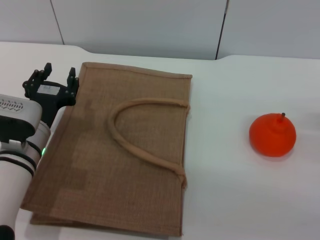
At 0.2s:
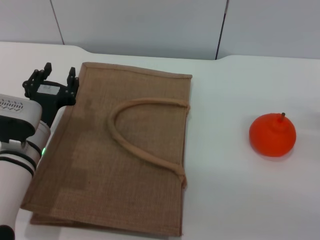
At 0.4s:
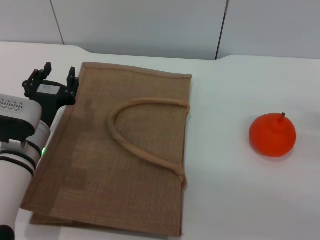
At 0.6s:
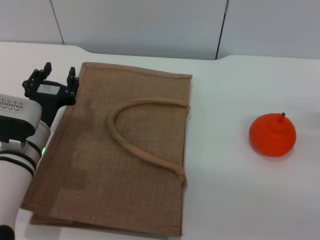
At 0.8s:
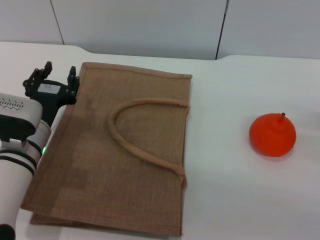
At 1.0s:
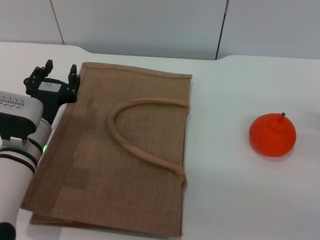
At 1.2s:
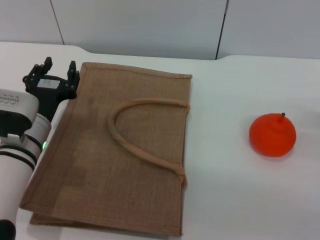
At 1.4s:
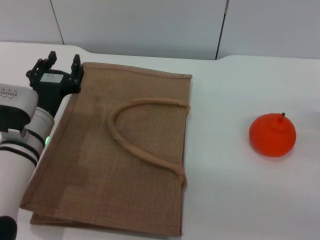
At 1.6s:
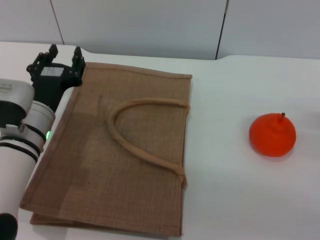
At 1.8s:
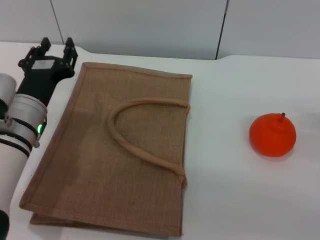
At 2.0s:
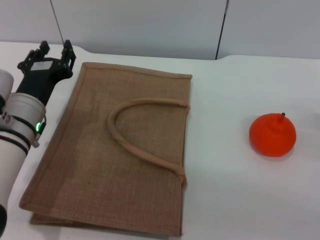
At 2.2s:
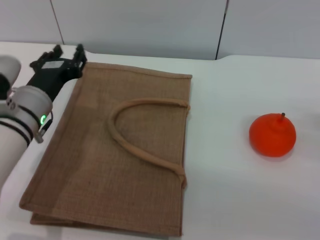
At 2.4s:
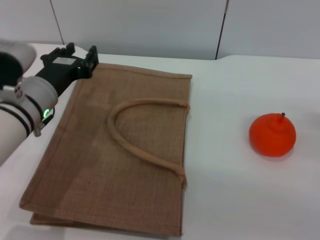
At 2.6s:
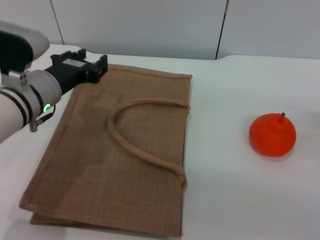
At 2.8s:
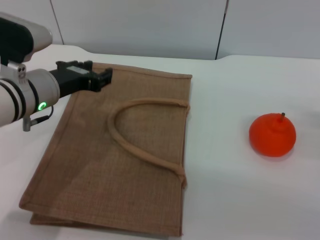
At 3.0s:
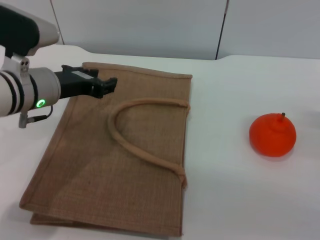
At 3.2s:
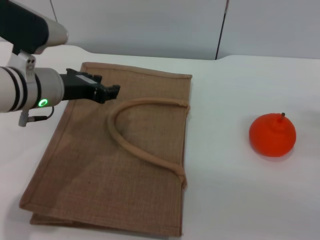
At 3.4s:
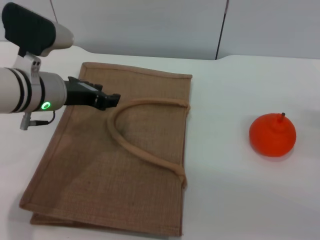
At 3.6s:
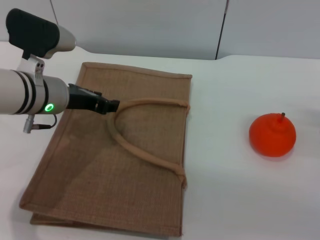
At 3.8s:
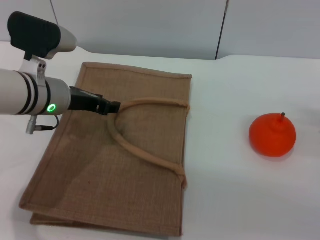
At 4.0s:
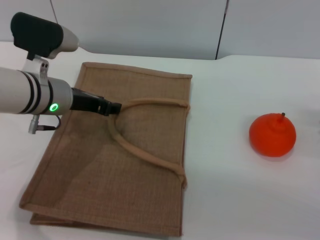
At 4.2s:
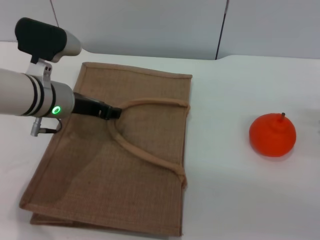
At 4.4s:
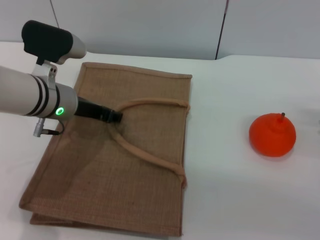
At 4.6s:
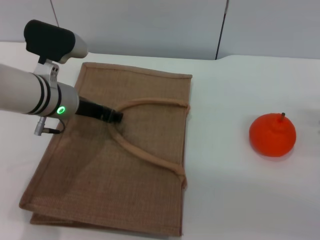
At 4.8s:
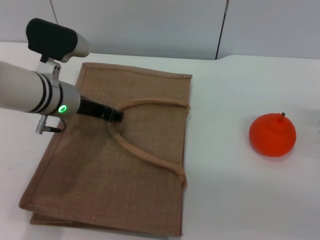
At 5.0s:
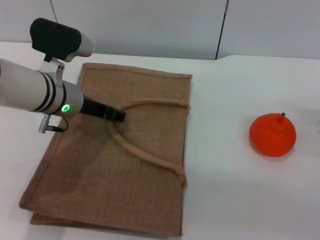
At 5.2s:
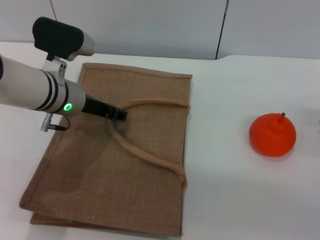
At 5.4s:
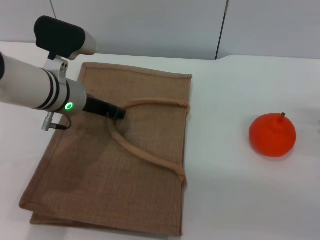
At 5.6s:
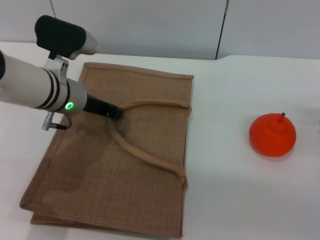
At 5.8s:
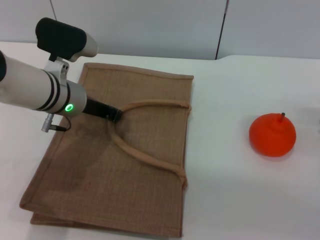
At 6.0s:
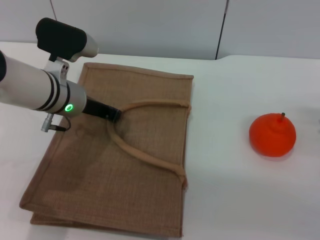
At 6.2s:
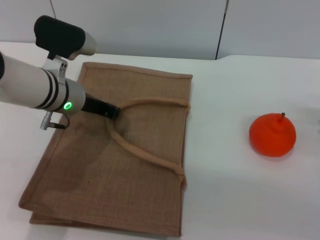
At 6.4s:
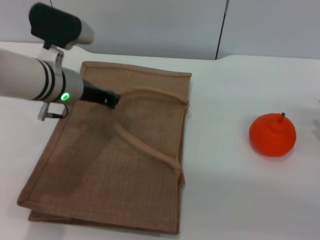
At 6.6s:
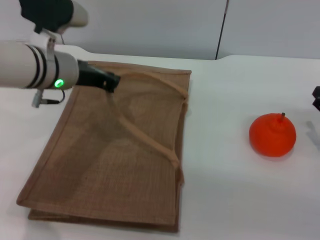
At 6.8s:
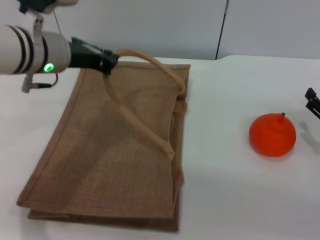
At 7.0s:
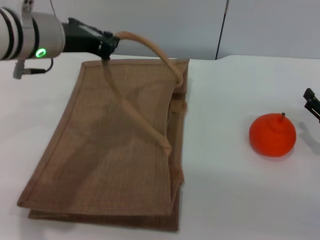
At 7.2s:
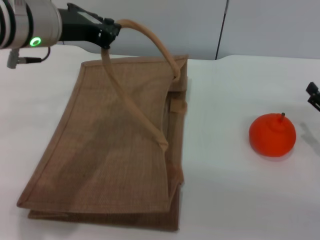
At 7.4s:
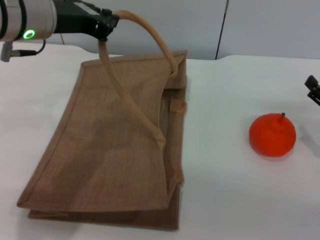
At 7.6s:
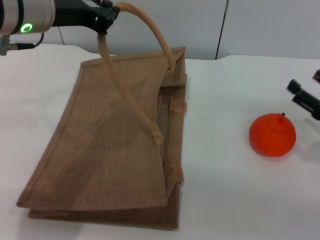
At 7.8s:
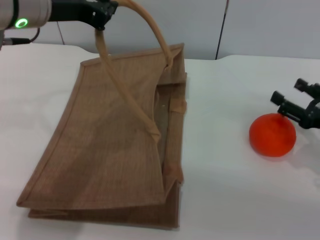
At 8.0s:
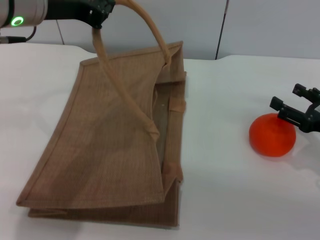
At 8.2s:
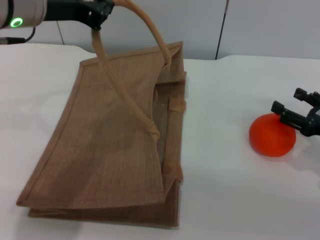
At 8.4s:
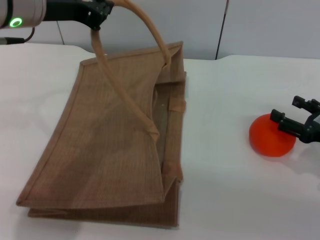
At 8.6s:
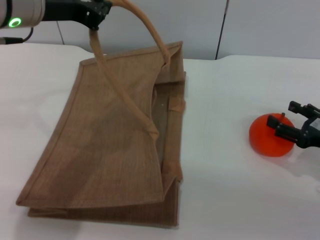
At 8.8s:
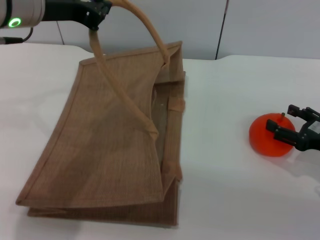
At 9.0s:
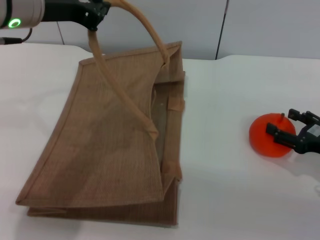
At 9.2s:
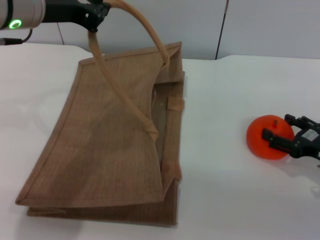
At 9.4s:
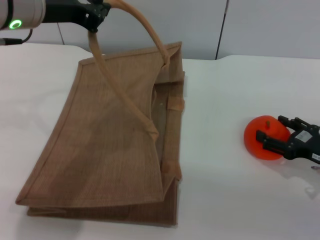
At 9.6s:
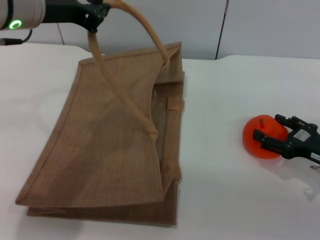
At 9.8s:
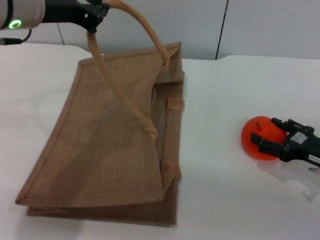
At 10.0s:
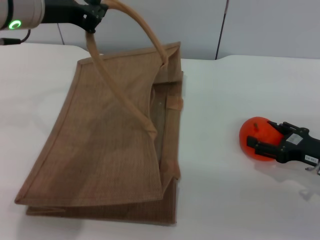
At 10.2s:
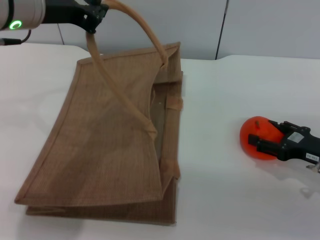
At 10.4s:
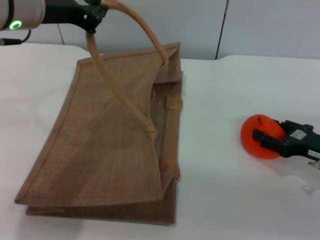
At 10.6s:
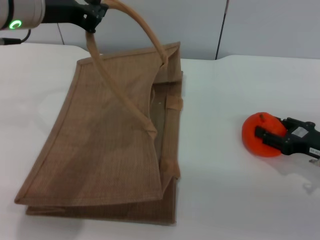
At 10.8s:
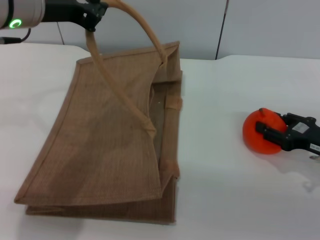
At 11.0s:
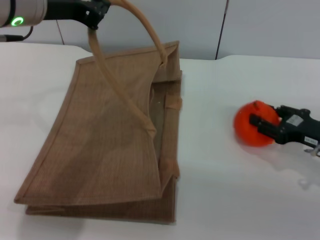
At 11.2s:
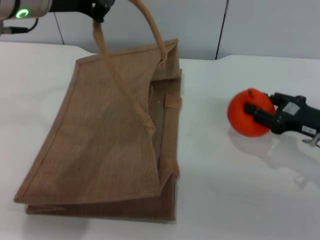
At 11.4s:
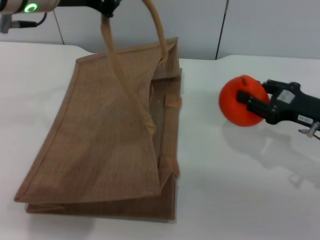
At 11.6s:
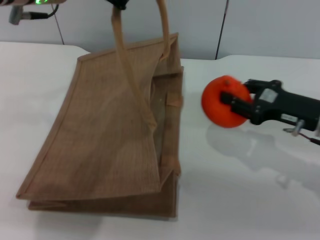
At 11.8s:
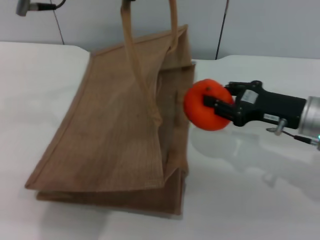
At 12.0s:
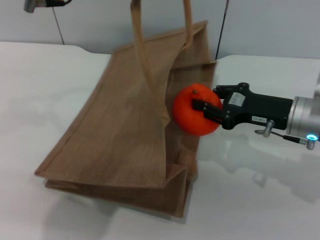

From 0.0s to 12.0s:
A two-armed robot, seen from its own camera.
Task of the whole recording: pick up the orange from the table and place it in the brown handbag.
Step, from 0.0s to 8.8s: Lift the woven bag with the left gripper to open it.
Step, from 9.0s to 11.4s: Pick up the orange with the right gripper.
From 0.0s to 1.6s: The grippers move only a little.
From 1.6s to 3.0s: The left gripper is displaced upward by approximately 10 cm.
From 3.0s to 4.4s: The grippers make only small movements.
From 4.4s to 6.0s: The left gripper closes up.
From 6.0s to 7.6s: The left gripper travels upward by roughly 15 cm.
From 7.6s to 9.0s: There are only small adjustments of the grippers.
From 9.0s to 10.4s: The grippers make only small movements.
From 10.4s to 12.0s: The left gripper moves to the right, approximately 5 cm. The right gripper goes some 10 cm to the left and upward, and closes up.

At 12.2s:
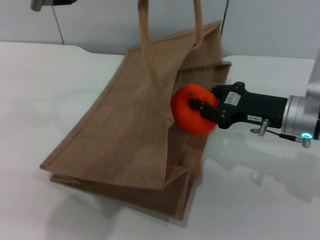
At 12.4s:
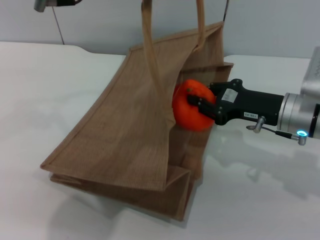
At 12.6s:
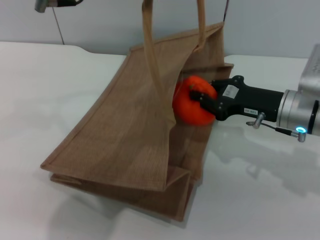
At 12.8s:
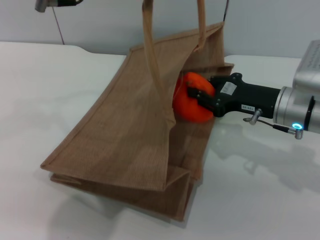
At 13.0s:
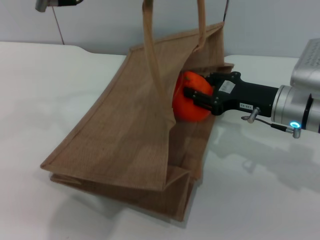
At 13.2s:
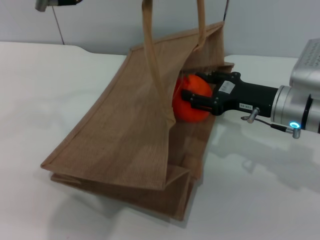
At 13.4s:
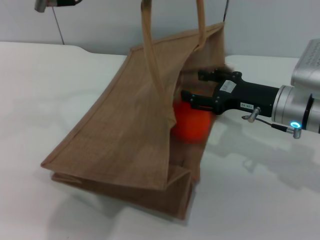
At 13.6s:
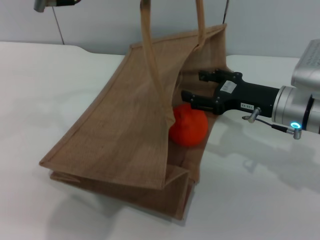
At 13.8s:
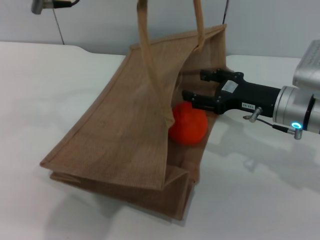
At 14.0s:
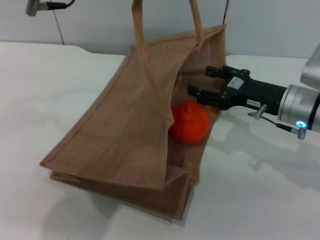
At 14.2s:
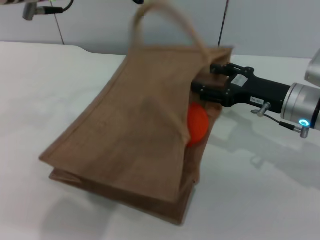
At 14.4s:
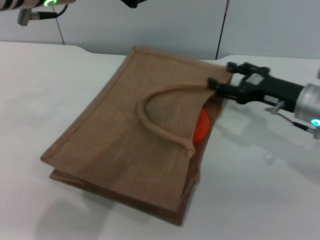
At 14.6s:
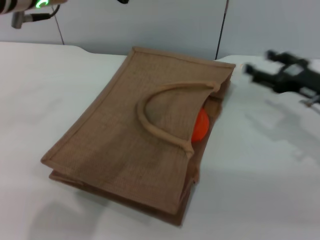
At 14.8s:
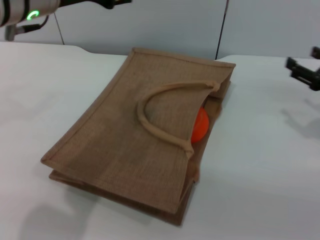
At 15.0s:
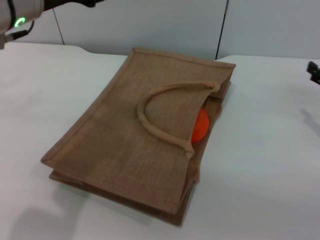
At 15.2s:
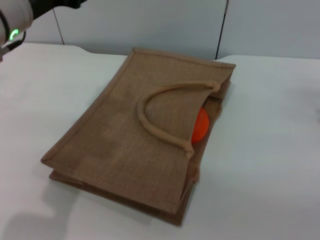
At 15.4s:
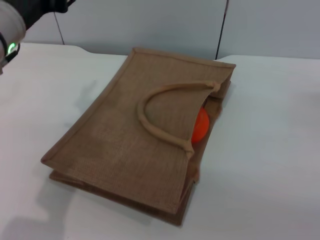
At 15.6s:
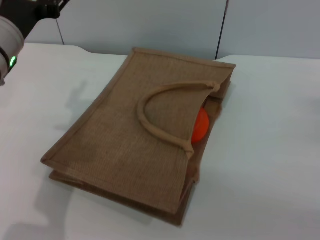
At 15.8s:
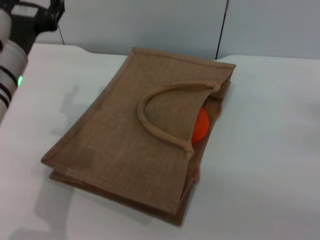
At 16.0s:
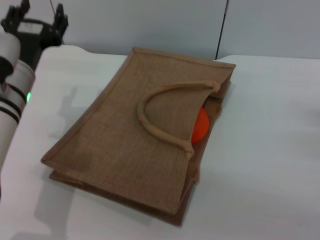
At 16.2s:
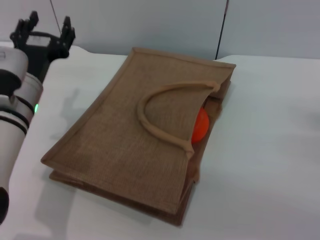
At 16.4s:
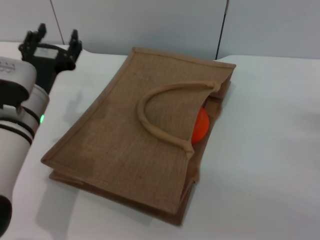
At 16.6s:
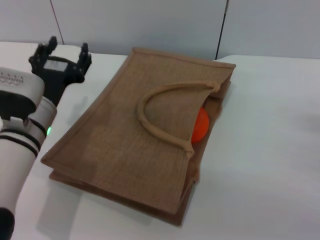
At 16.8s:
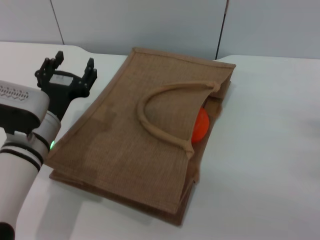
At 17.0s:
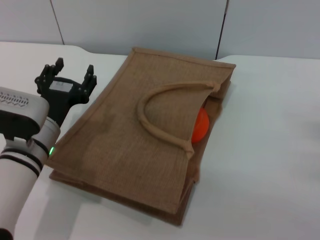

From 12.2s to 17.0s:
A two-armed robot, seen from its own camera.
Task of the whole recording: pick up the orange from the table and place it in the brown handbag.
Step, from 12.2s to 14.4s: Place the orange into the woven bag with the right gripper.
From 12.2s to 13.8s: The right gripper opens.
From 13.8s to 15.4s: The right gripper travels to the right by about 15 cm. The left gripper is displaced downward and to the left by approximately 15 cm, and opens.
From 15.4s to 17.0s: The left gripper is displaced downward by roughly 15 cm.

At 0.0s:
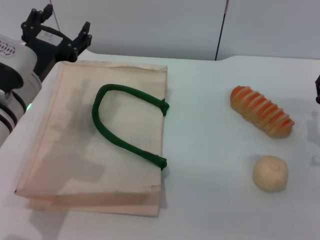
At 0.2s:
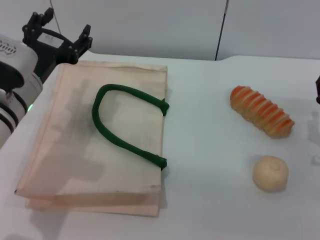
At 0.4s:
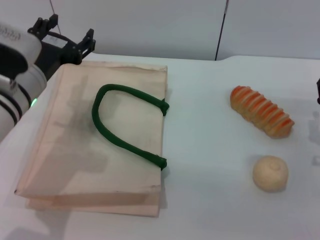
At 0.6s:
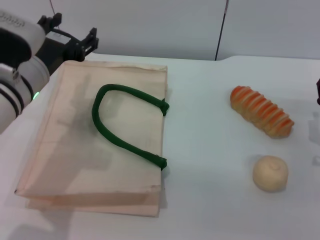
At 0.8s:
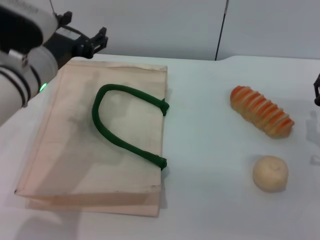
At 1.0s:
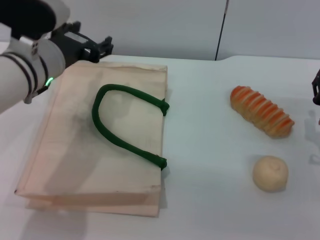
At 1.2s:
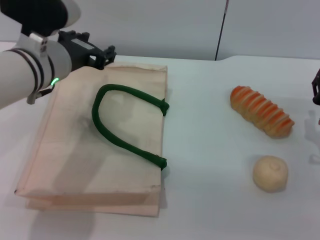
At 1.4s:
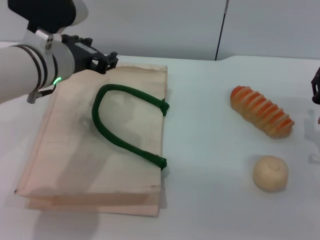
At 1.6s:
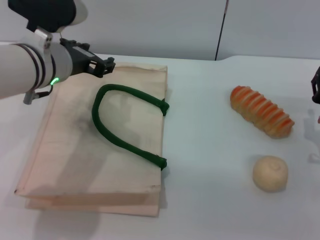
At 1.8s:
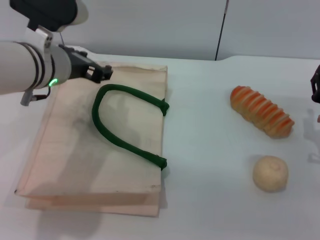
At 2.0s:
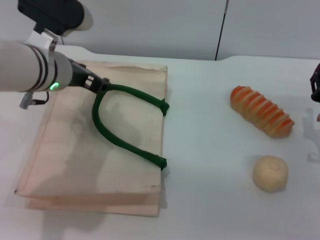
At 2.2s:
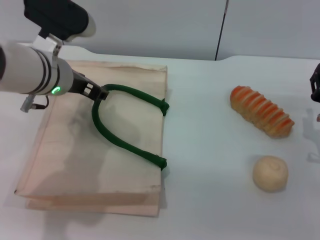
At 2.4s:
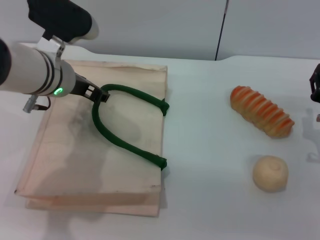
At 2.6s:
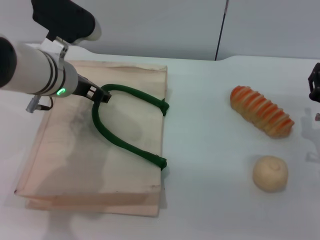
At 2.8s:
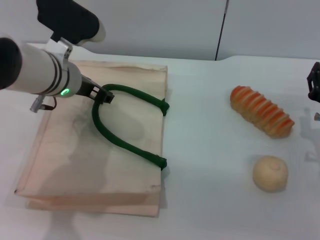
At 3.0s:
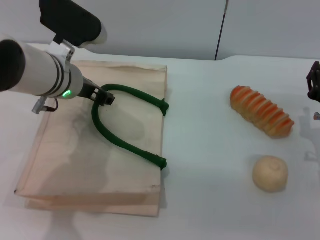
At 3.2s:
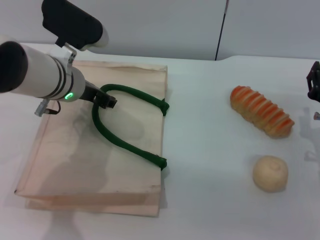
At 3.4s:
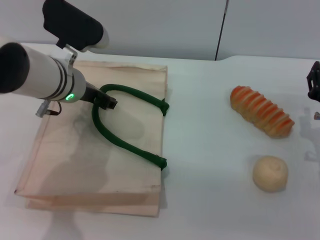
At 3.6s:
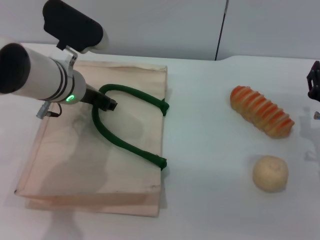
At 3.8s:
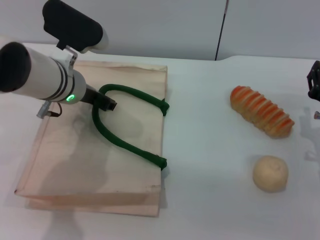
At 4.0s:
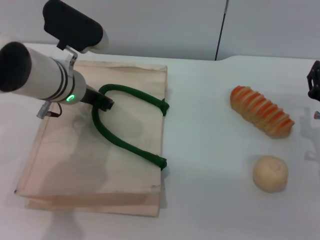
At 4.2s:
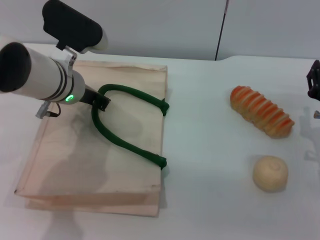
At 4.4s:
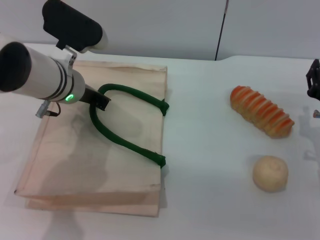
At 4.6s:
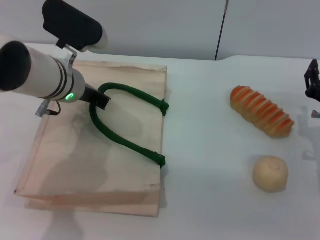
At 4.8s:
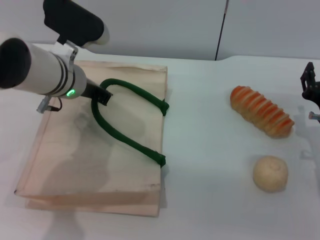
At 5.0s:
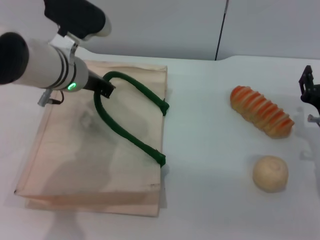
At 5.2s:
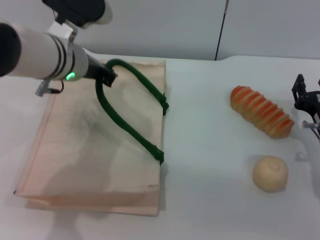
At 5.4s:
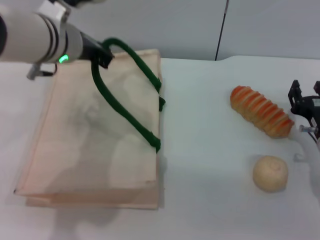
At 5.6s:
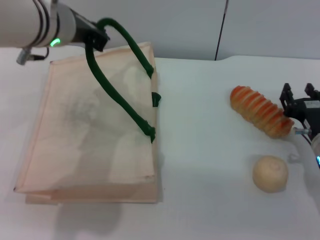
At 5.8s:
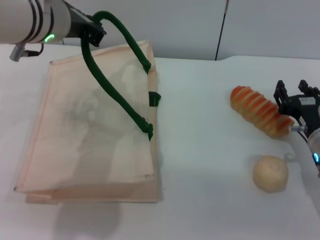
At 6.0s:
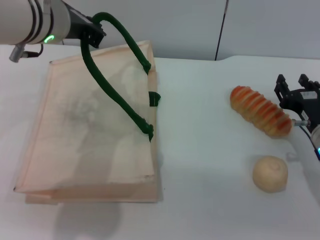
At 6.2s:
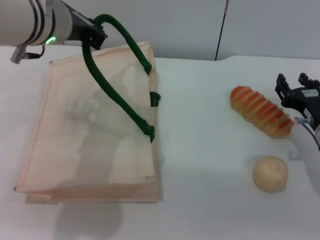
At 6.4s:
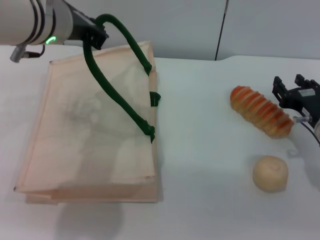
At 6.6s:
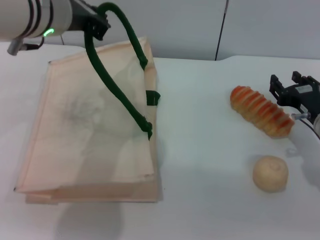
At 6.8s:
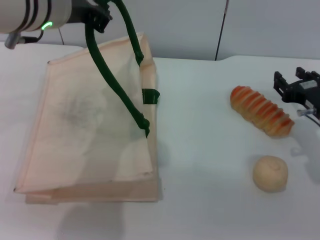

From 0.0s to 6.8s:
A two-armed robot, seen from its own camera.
Task of the whole recording: pick up the bread and egg yolk pastry from the table and place it in the white handbag.
Step, from 0.0s to 4.8s: Lift the woven bag with the left gripper to open it.
From 0.0s to 1.4s: The left gripper ends up approximately 5 cm from where it was.
From 1.4s to 2.8s: The grippers make only small movements.
From 2.8s to 4.0s: There are only small adjustments of the grippers.
From 4.0s to 5.4s: The left gripper goes about 5 cm upward, and closes its fingers.
From 5.4s to 6.8s: The left gripper goes some 5 cm upward, while the right gripper ends up approximately 5 cm from where it was.
